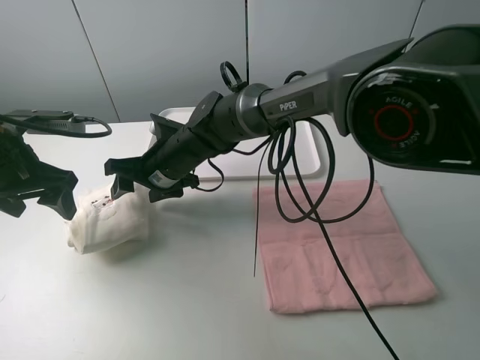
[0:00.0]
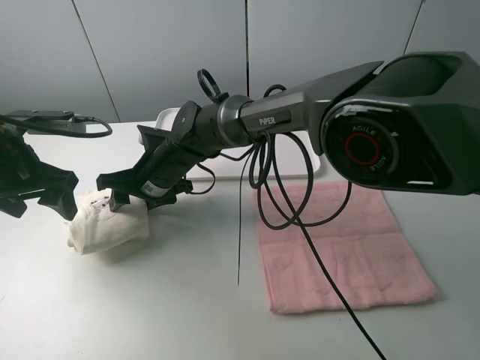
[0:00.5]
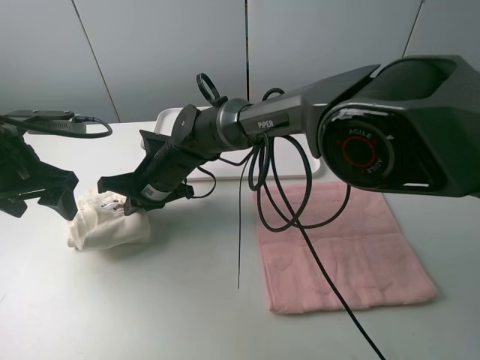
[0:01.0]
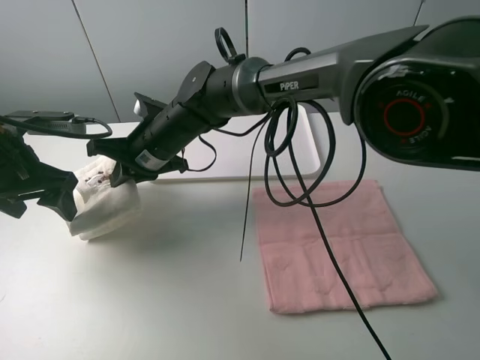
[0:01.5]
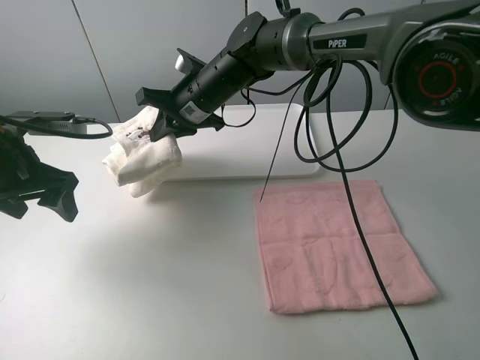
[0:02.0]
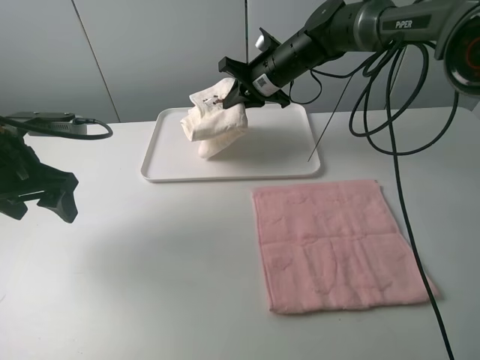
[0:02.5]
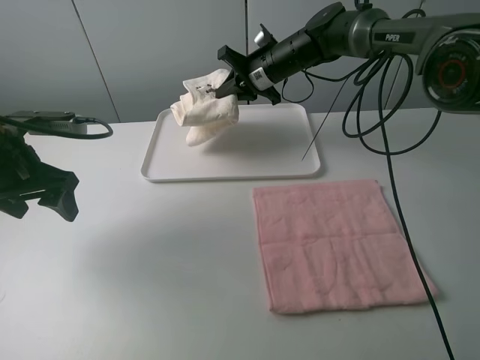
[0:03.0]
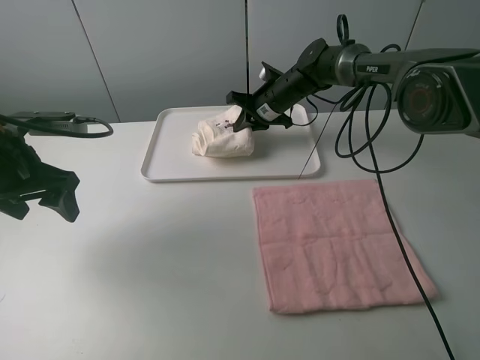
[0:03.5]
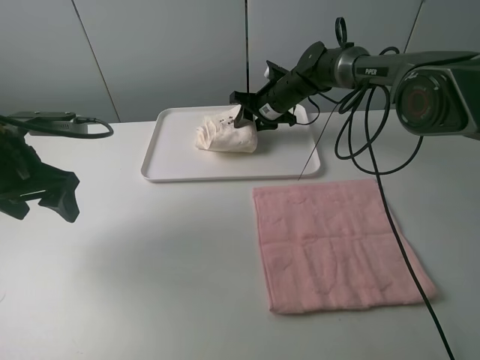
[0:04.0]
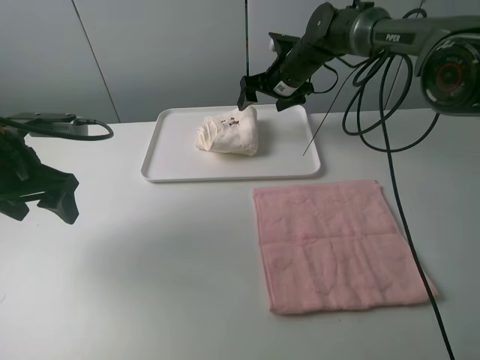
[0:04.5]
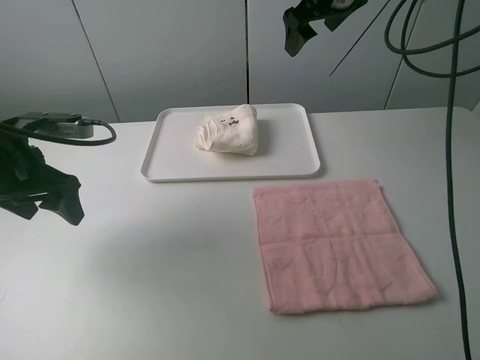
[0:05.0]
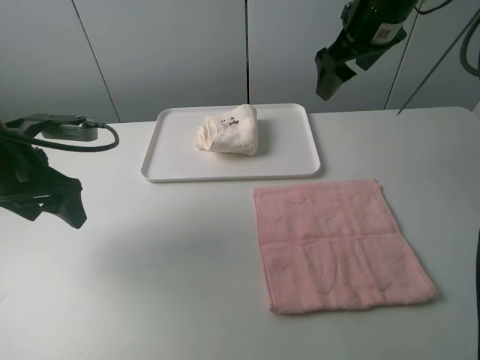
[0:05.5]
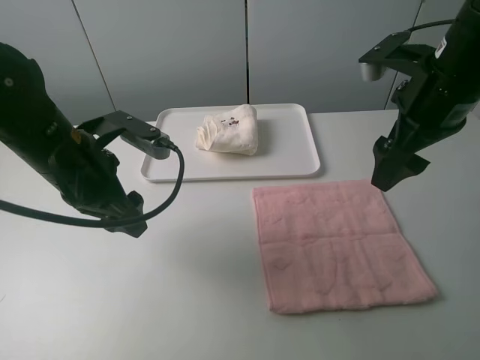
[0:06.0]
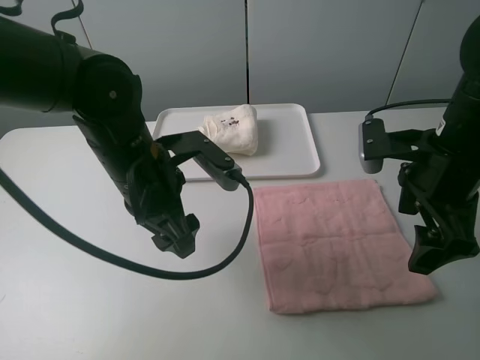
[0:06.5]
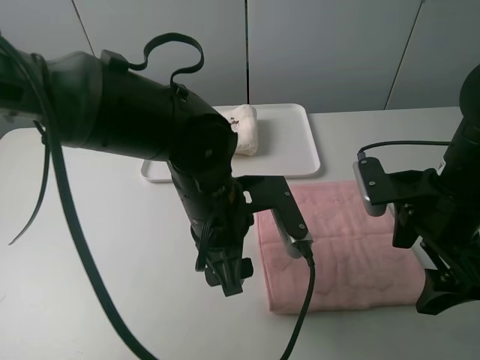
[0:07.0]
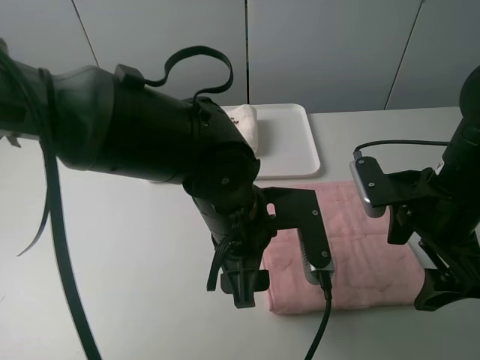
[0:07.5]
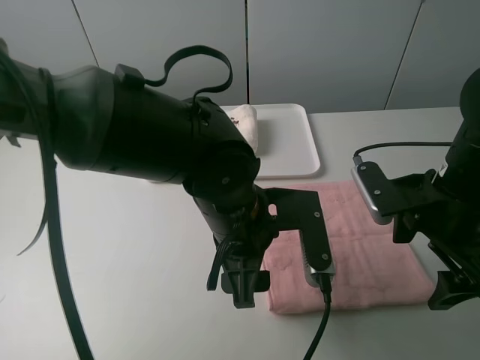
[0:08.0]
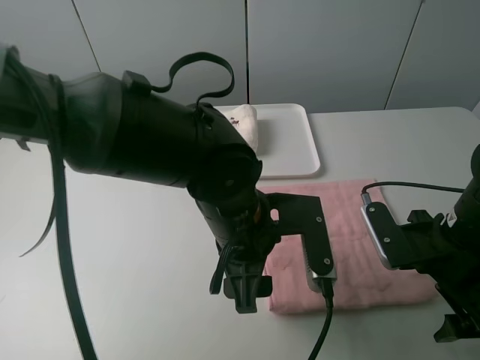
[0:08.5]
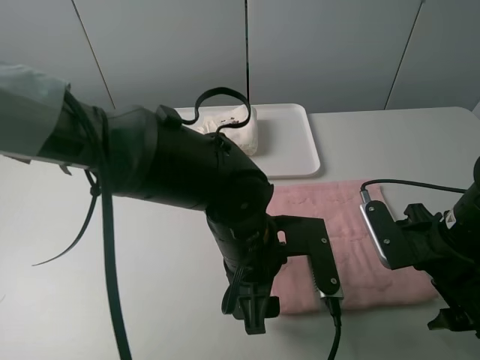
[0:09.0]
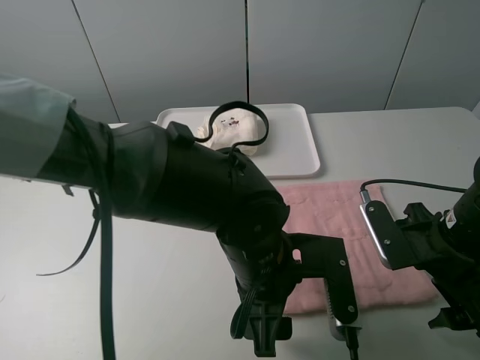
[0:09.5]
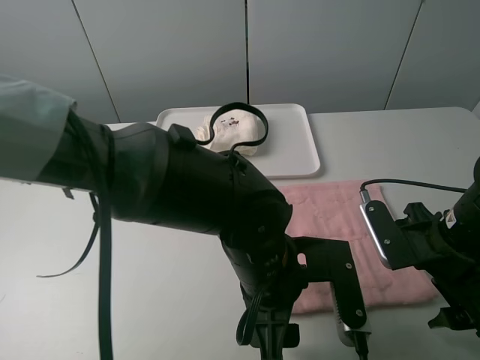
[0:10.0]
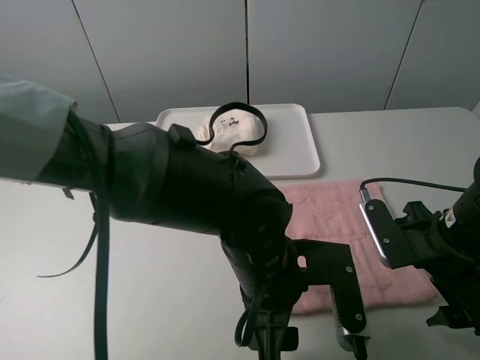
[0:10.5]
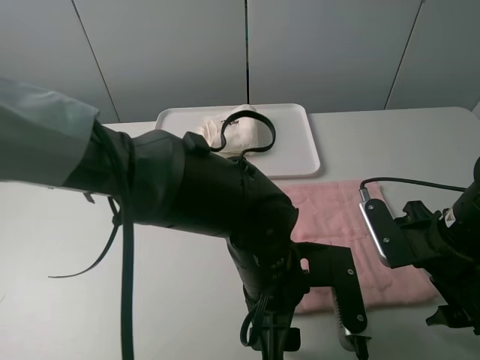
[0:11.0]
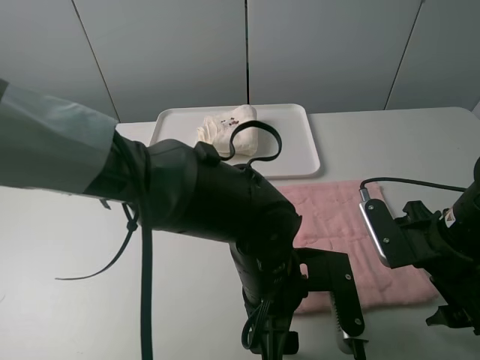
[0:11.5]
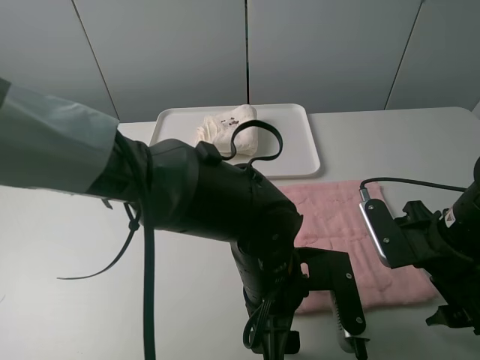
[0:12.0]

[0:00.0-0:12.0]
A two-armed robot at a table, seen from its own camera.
Task of the whole recording: fold one of the towels by two grippers and place it on the tray,then fold another towel by two grippers and place it on the folded towel.
Step, 0:01.0 to 0:04.5: Move the white towel to the plate with the right gripper.
0:00.0 to 0:02.0: The right gripper travels upward, forward and to the right by roughly 10 cm, and closes its fingers.
0:02.0 to 0:04.0: The right gripper moves to the right, forward and downward, approximately 20 cm, and opens up.
0:04.0 to 0:06.0: The right gripper travels backward, upward and to the right by some 30 cm; the left gripper moves to the right, about 10 cm.
0:06.0 to 0:08.0: The left gripper is displaced to the right by about 20 cm, while the right gripper heads downward and backward, covering approximately 10 cm.
0:08.0 to 0:10.0: The right gripper moves approximately 5 cm. The left gripper moves about 5 cm.
0:10.0 to 0:12.0: The grippers stay close to where they were, moving slightly.

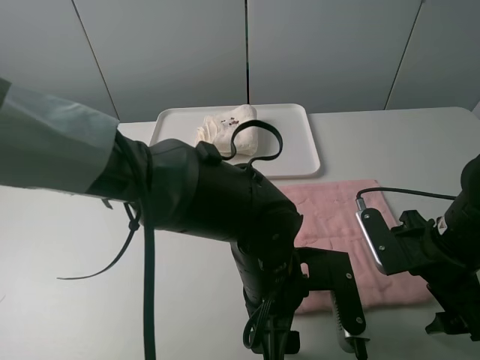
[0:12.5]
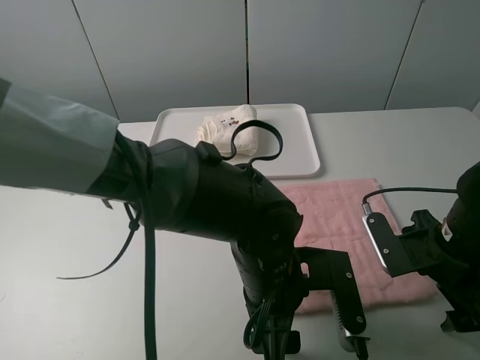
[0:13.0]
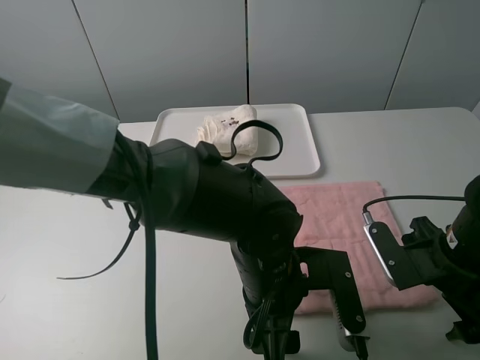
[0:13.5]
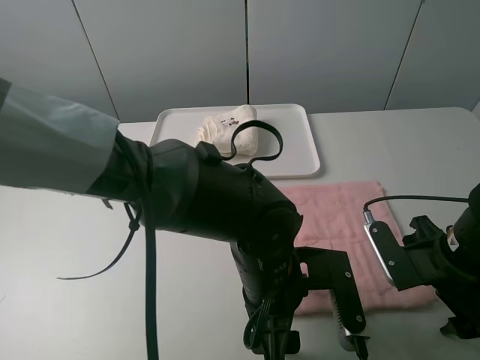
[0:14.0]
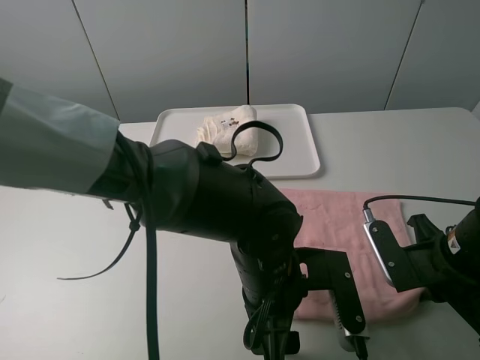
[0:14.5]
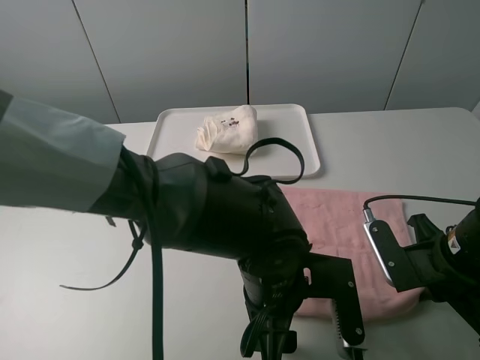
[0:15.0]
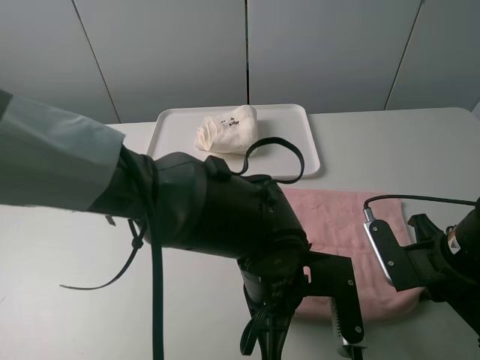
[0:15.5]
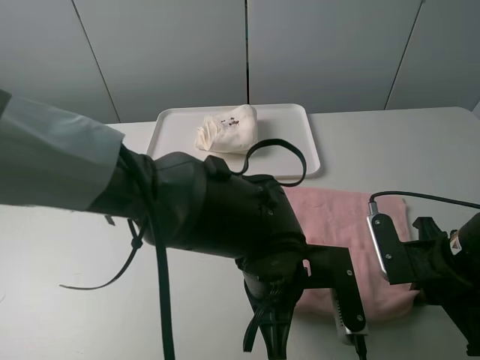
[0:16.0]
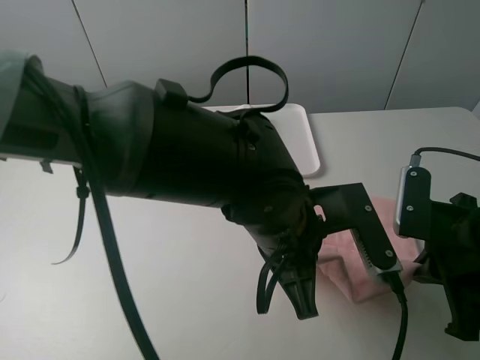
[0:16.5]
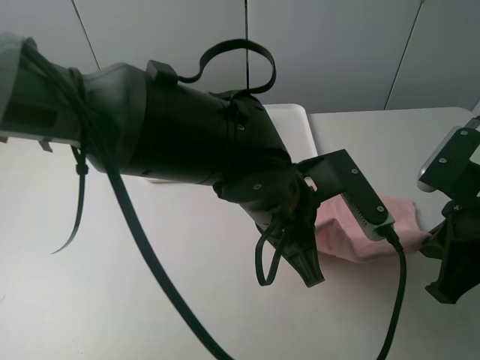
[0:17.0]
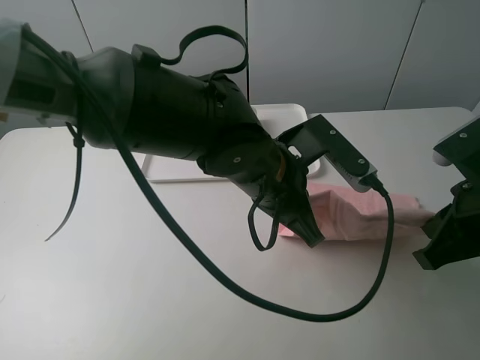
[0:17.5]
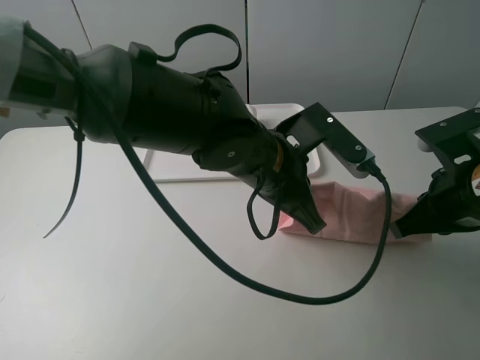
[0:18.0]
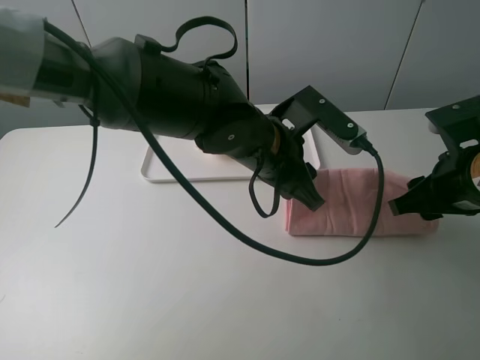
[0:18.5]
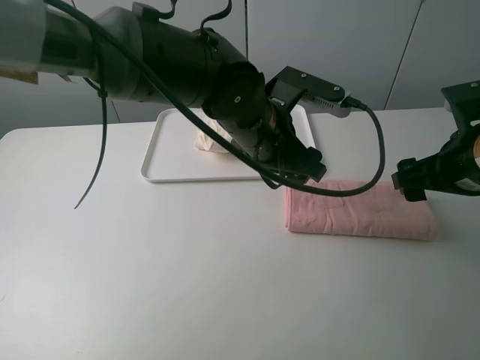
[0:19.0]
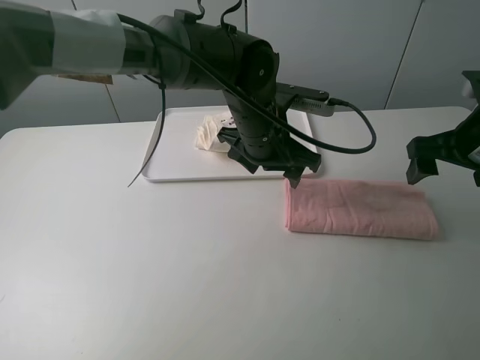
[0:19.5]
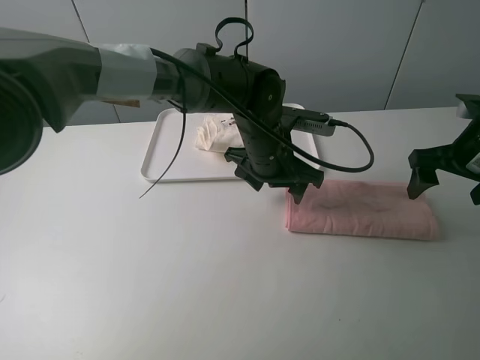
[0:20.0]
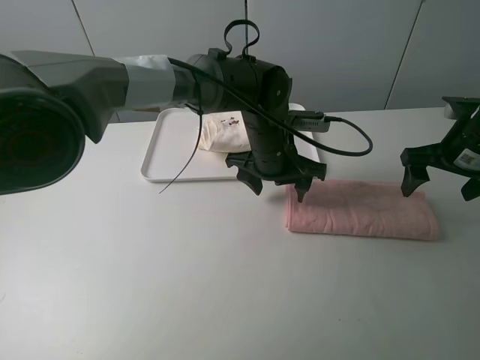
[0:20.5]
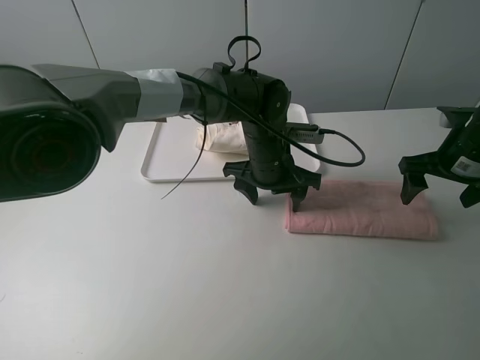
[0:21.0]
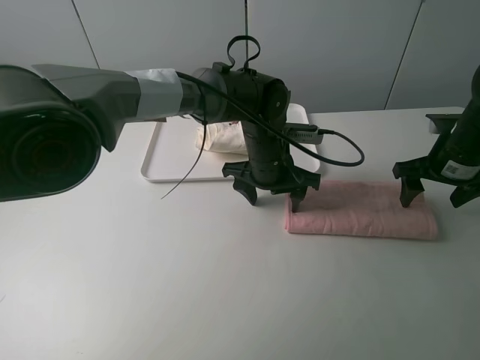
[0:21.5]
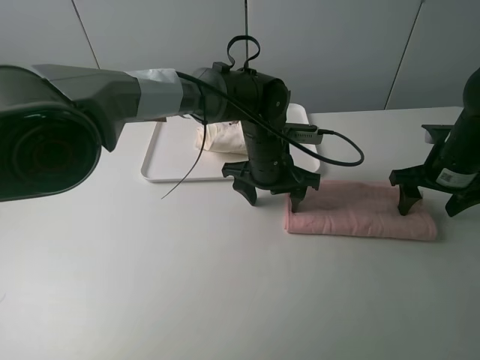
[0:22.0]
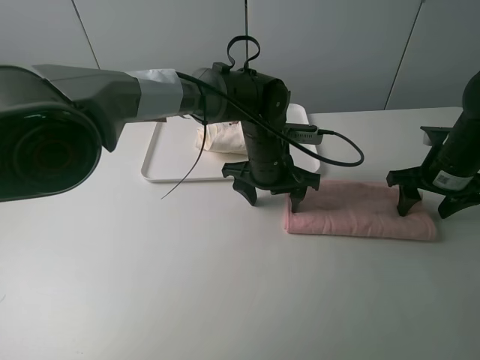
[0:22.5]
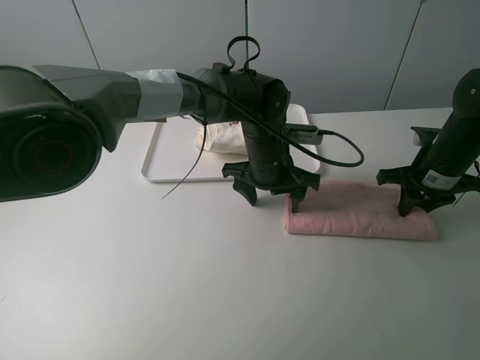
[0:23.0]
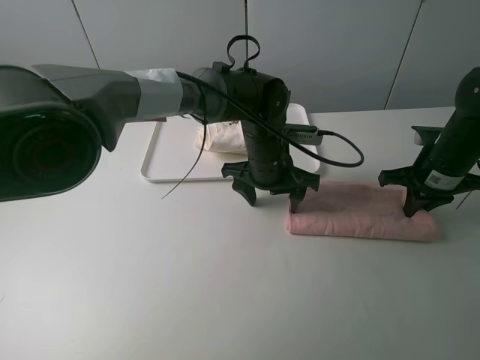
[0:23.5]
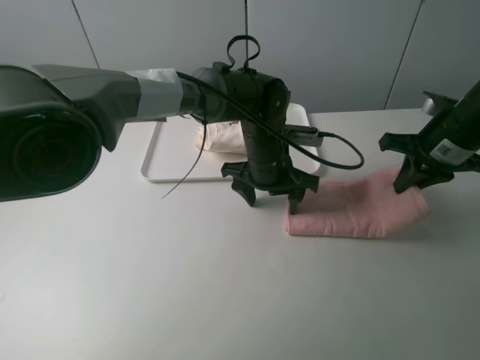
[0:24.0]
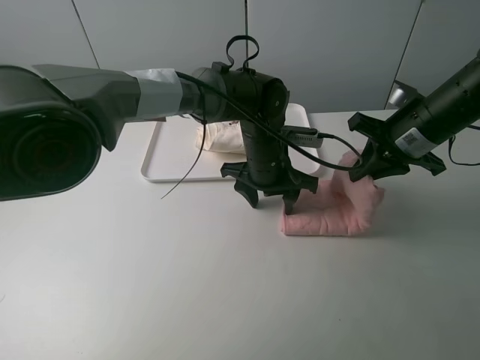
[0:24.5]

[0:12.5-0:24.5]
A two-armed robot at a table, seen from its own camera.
Task of the whole recording: fold one of the towels by two grippers and place it on the tray,then fold another towel by two grippers and place it on the folded towel.
Step, 0:12.5 to 0:15.5: Grasp the pink towel with the left gripper.
Step, 0:16.0 to 0:19.0: Fold the pink towel upwards with the left gripper.
Step, 0:19.5 to 0:21.0: Press the pink towel with the left gripper.
Step, 0:21.5 to 0:23.0: Grasp the pink towel with the right gripper.
0:12.5 to 0:14.5: The right gripper closes.
0:14.5 to 0:16.5: The grippers both shift upward by roughly 5 cm. The left gripper closes its fingers.
0:16.5 to 0:18.5: Both grippers move forward, approximately 5 cm. The left gripper opens its fingers. The right gripper opens its fingers.
0:18.5 to 0:20.5: The right gripper goes about 10 cm forward and to the right, while the left gripper moves forward and downward, roughly 10 cm.
0:20.5 to 0:22.5: The right gripper goes approximately 5 cm downward.
0:22.5 to 0:24.5: The right gripper heads to the left and upward, covering some 10 cm, and closes its fingers.

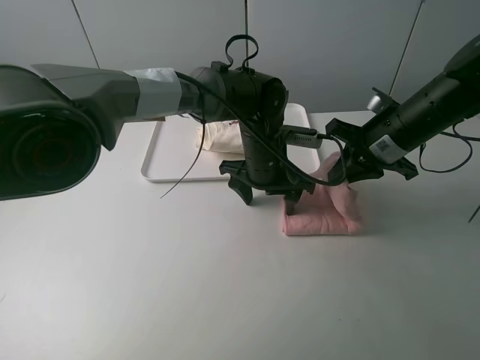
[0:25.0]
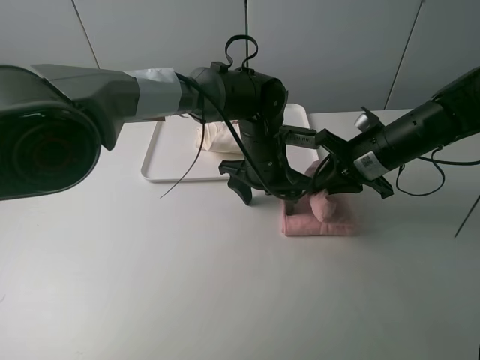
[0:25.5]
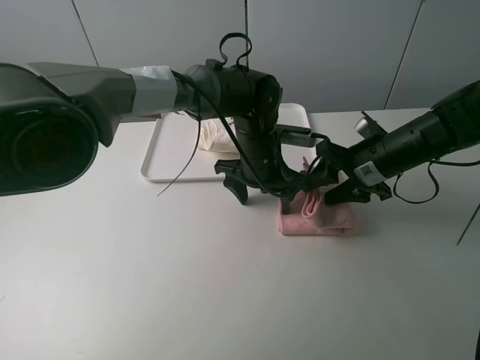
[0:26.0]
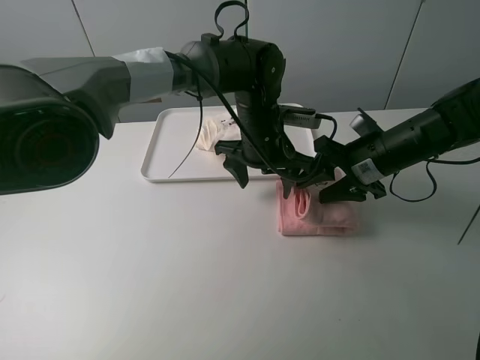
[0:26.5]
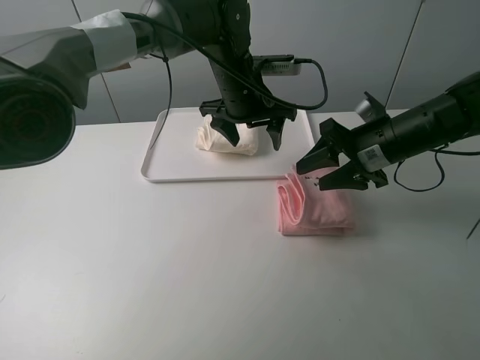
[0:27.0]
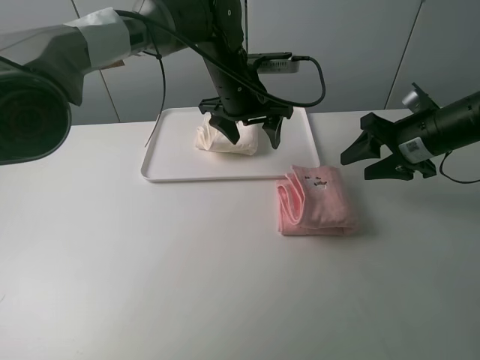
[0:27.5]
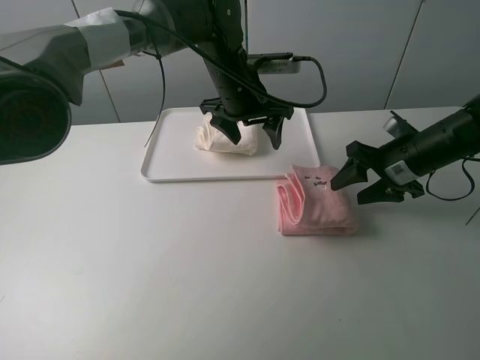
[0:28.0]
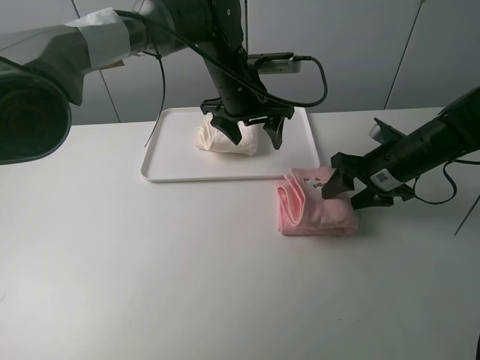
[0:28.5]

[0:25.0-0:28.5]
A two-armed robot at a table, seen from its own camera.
Task of the whole recording: fold one of the towels by two grippers and place it on the tray,then fold another towel by two grippers and place it on the folded towel.
Step, 0:25.0 to 0:27.0: Fold the pink towel from right to left with right gripper.
0:25.0 to 0:27.0: The left gripper goes about 10 cm upward and forward. The right gripper opens.
0:27.0 to 0:28.5: The right gripper travels downward by roughly 5 cm.
